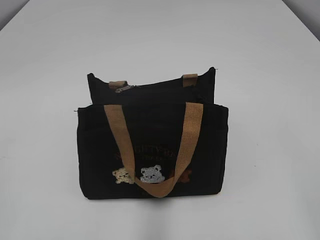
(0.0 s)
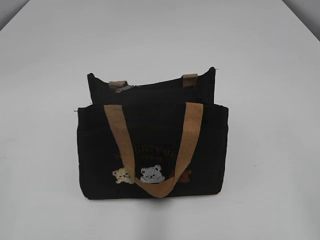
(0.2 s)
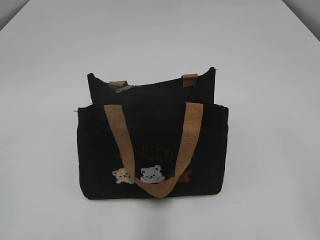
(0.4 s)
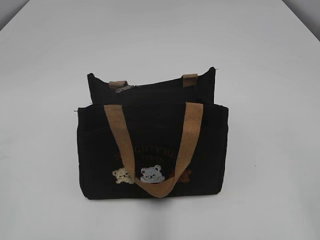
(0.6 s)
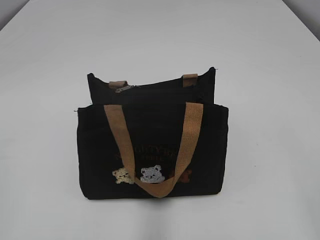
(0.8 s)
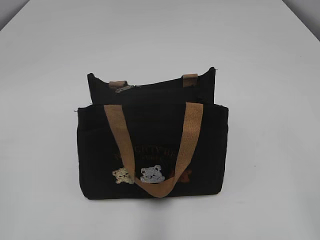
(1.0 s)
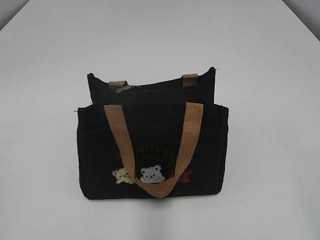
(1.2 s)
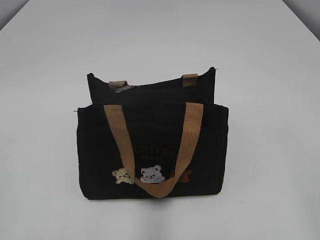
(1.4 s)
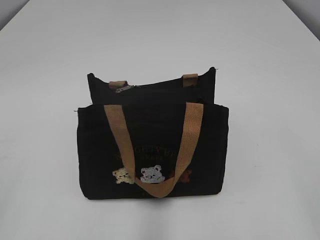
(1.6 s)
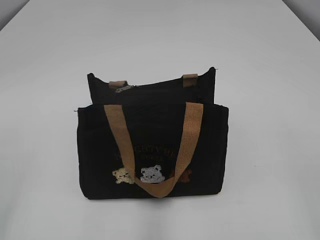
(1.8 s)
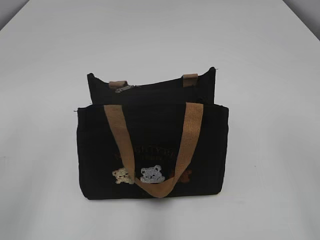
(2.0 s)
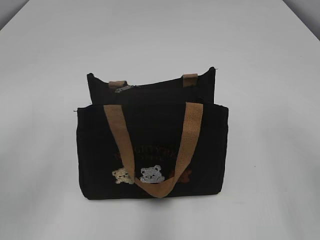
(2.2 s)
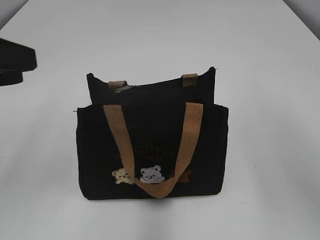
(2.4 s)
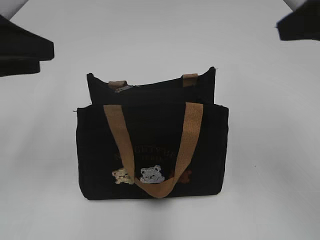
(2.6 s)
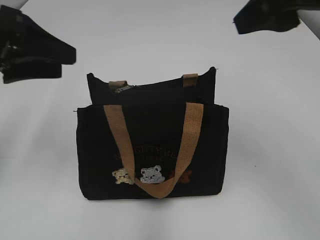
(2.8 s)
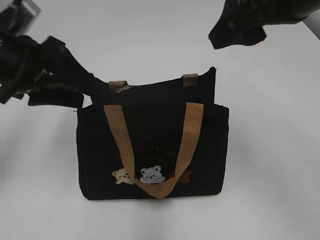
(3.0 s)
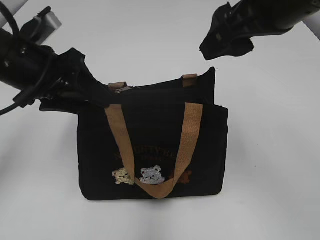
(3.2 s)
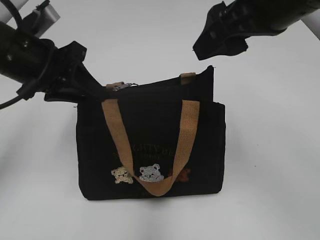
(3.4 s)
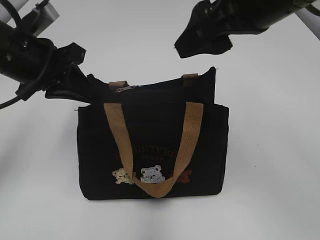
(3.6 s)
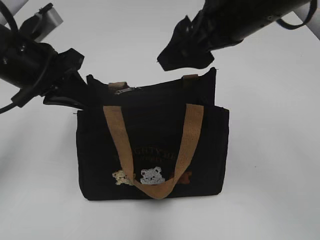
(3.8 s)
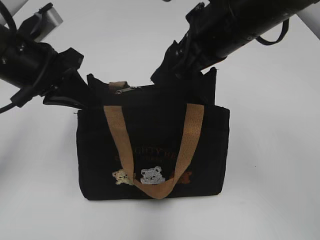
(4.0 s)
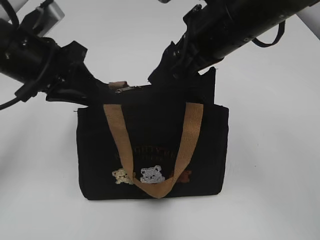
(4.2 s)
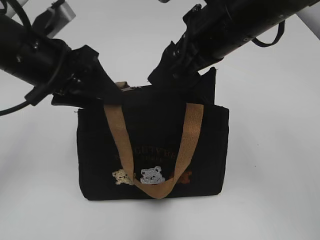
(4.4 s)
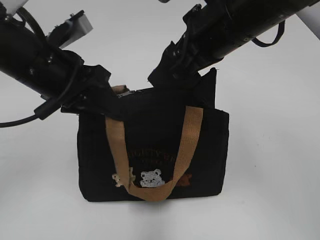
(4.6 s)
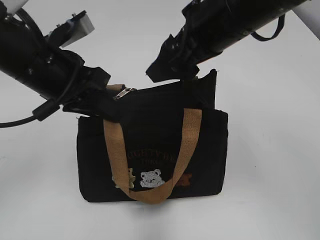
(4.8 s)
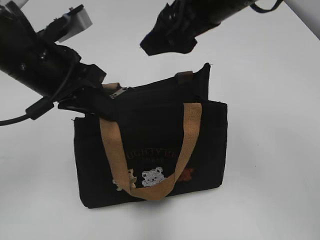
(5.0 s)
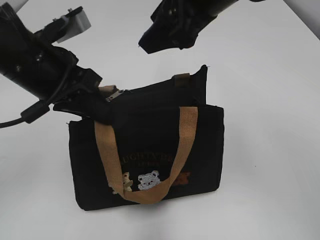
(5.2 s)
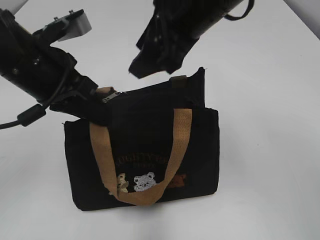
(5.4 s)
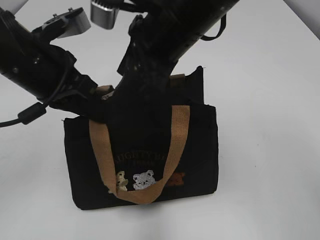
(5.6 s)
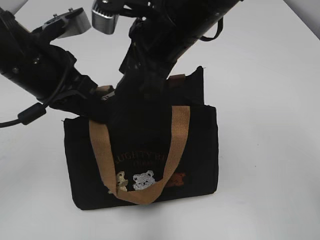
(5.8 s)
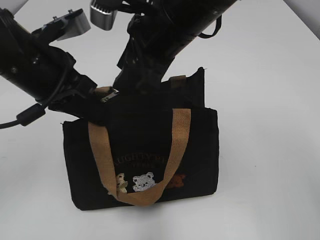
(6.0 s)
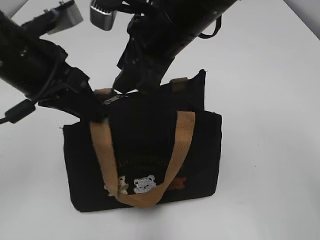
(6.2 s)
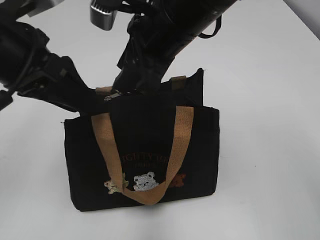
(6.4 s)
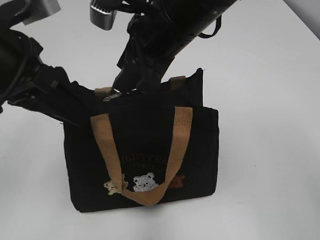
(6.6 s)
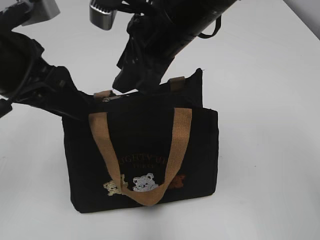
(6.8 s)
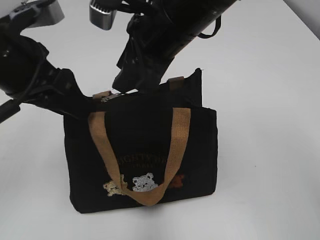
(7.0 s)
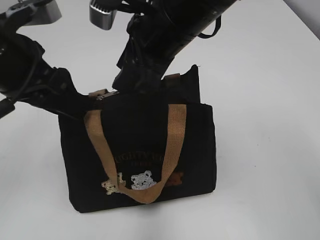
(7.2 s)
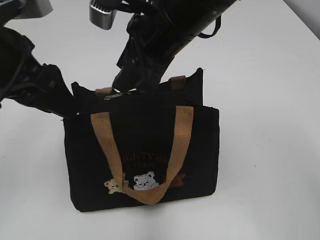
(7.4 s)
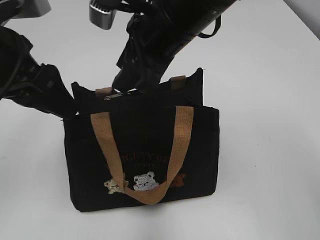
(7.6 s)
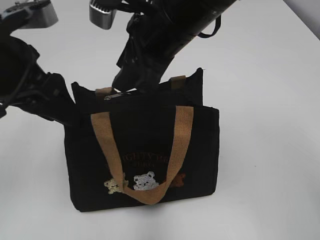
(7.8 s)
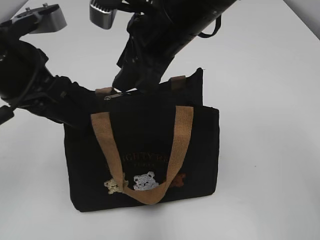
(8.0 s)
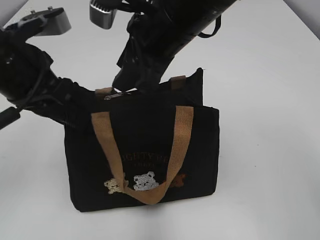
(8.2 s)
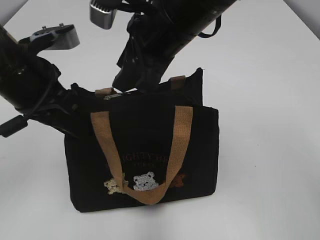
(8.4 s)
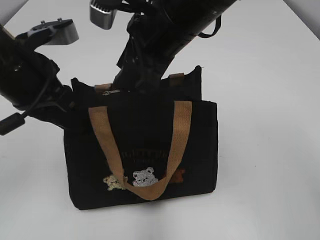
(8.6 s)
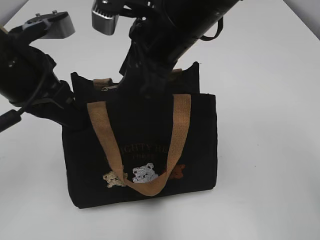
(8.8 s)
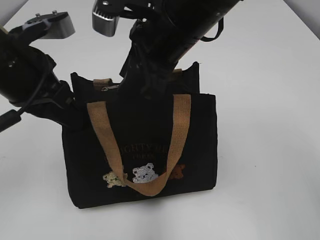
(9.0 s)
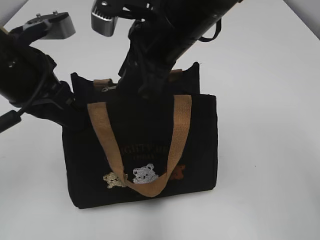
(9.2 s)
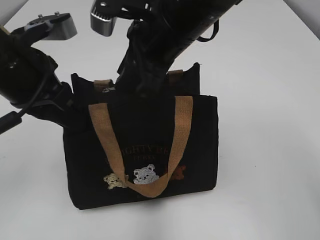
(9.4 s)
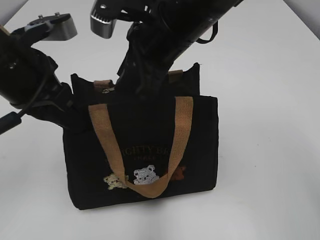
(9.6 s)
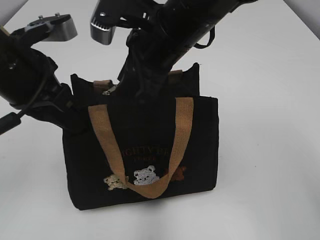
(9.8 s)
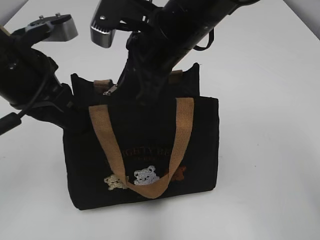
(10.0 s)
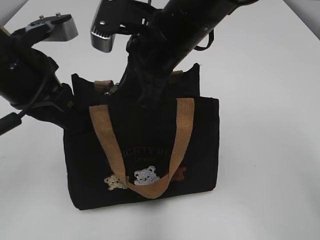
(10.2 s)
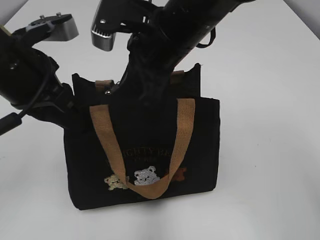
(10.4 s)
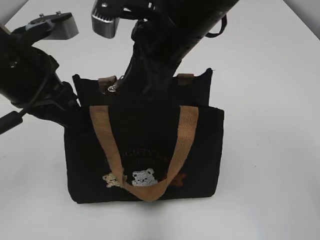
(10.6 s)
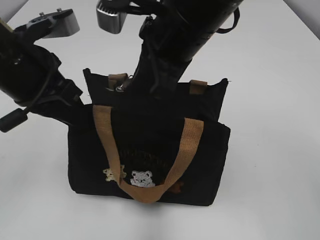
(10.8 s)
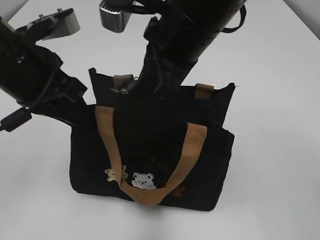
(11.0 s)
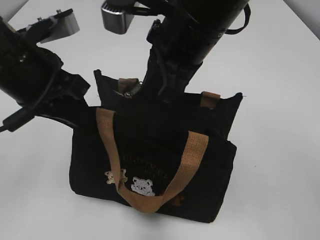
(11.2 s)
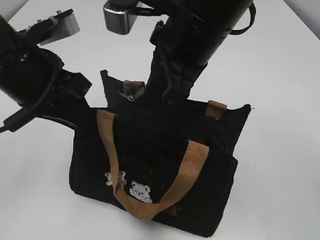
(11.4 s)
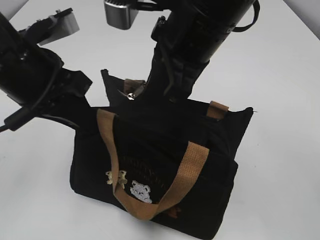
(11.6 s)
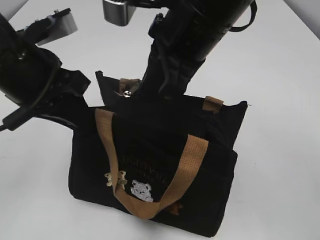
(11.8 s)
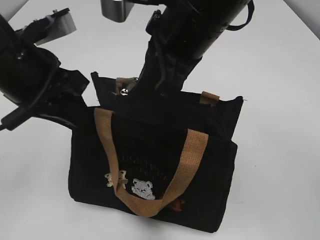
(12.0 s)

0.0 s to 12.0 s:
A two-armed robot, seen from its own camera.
1.6 to 3.0 s: The left gripper heads forward, covering approximately 30 cm, and opens, while the right gripper heads forward and to the left, covering some 30 cm.
3.0 to 4.4 s: The left gripper closes, then reopens. Meanwhile the right gripper travels downward and to the left by approximately 10 cm.
4.4 to 6.0 s: The left gripper closes its fingers, while the right gripper is displaced to the left by about 5 cm, and closes.
6.0 to 7.6 s: The left gripper changes place by roughly 5 cm, and opens its fingers.
7.6 to 9.0 s: The left gripper closes.
9.0 to 10.4 s: The right gripper closes its fingers.
10.4 to 12.0 s: The right gripper moves roughly 5 cm.

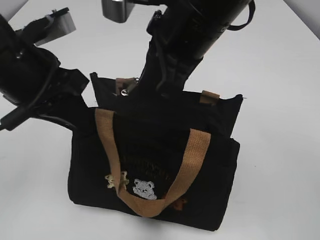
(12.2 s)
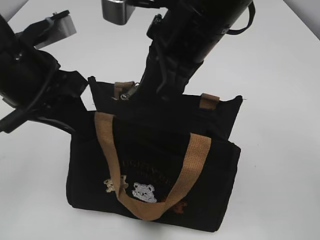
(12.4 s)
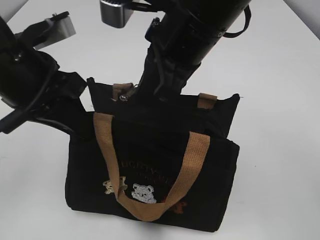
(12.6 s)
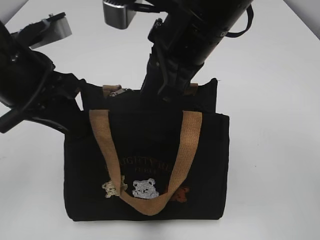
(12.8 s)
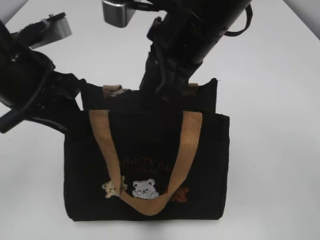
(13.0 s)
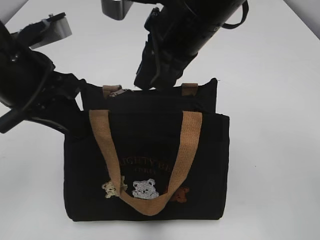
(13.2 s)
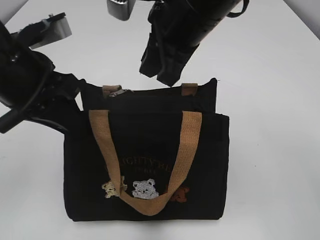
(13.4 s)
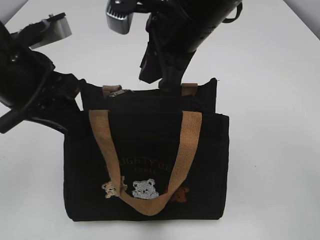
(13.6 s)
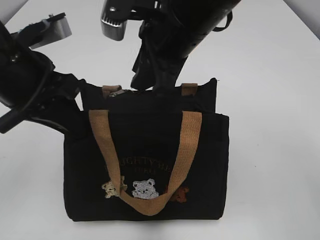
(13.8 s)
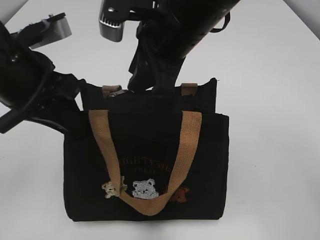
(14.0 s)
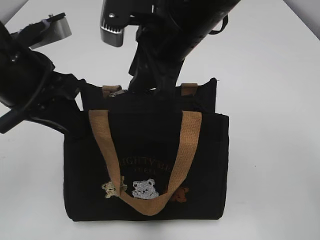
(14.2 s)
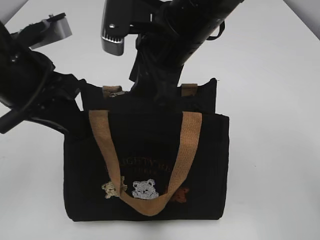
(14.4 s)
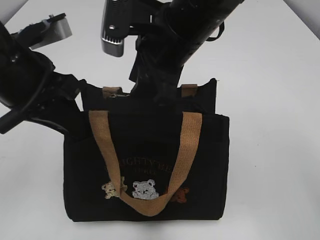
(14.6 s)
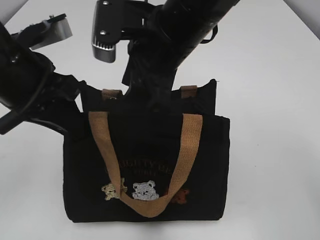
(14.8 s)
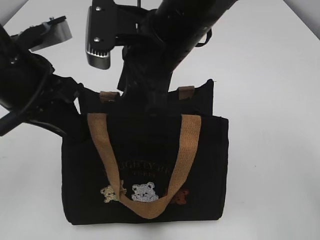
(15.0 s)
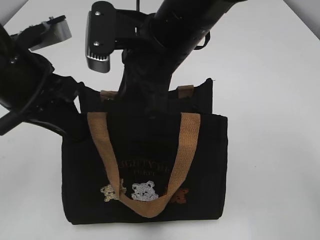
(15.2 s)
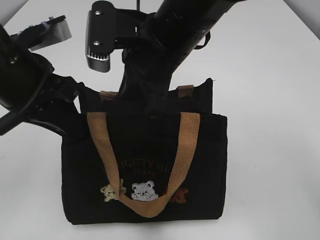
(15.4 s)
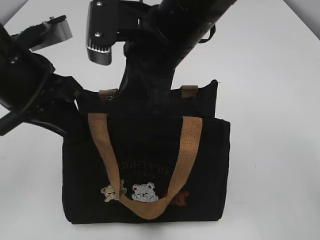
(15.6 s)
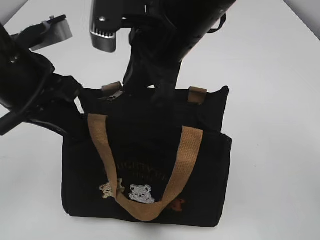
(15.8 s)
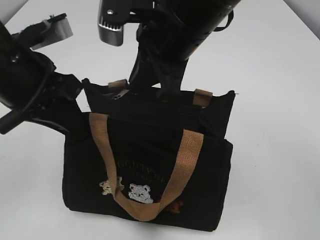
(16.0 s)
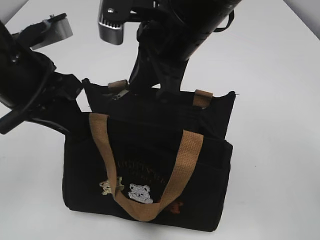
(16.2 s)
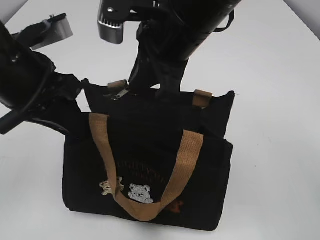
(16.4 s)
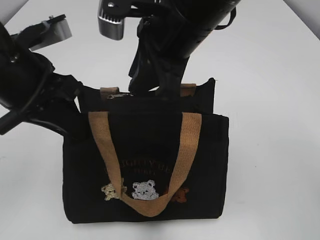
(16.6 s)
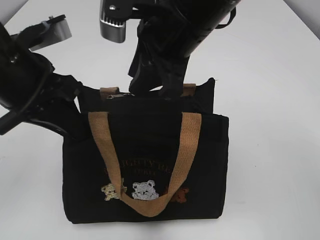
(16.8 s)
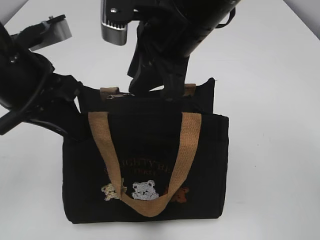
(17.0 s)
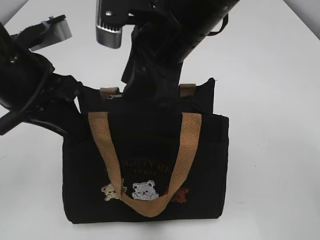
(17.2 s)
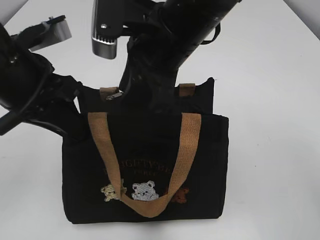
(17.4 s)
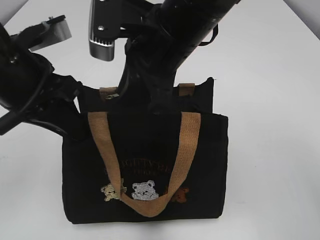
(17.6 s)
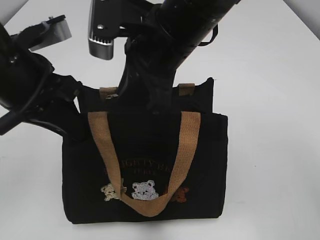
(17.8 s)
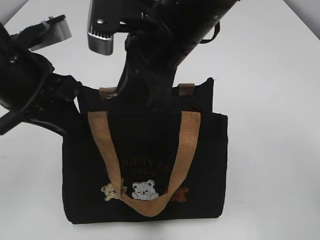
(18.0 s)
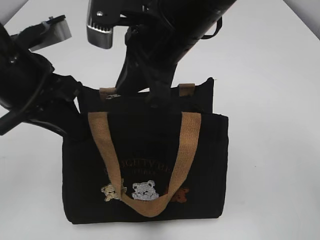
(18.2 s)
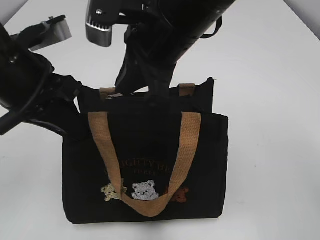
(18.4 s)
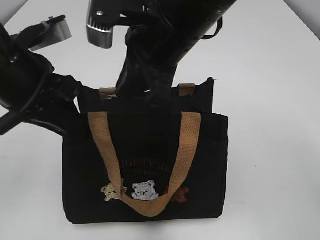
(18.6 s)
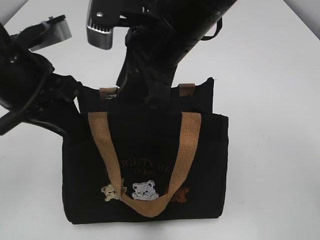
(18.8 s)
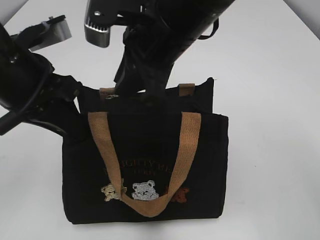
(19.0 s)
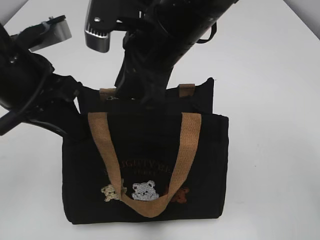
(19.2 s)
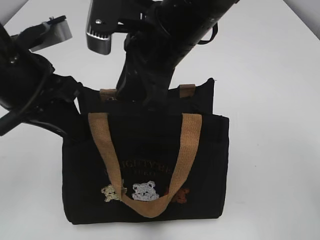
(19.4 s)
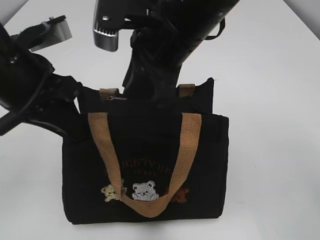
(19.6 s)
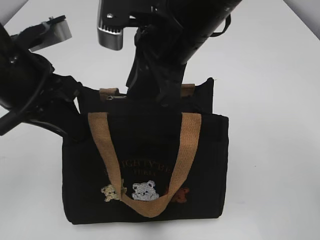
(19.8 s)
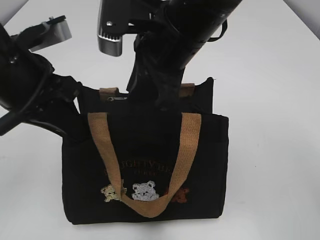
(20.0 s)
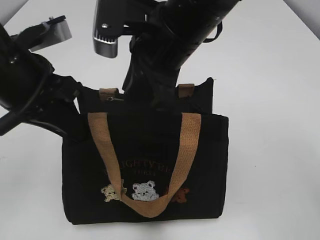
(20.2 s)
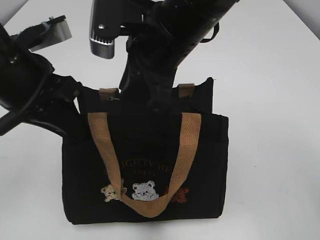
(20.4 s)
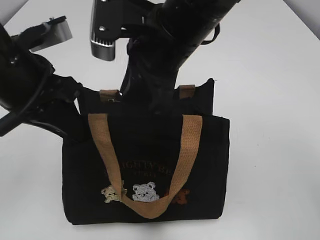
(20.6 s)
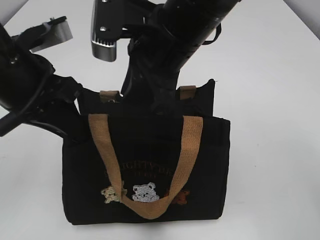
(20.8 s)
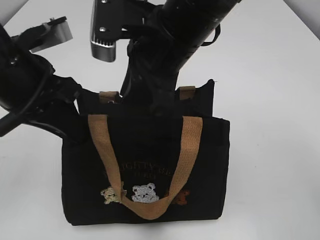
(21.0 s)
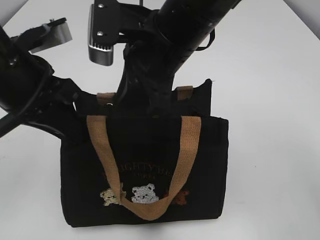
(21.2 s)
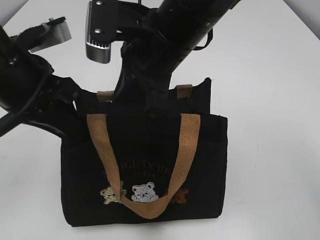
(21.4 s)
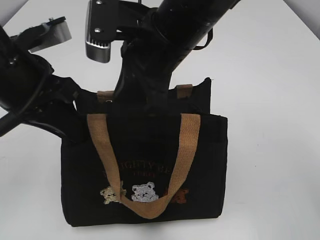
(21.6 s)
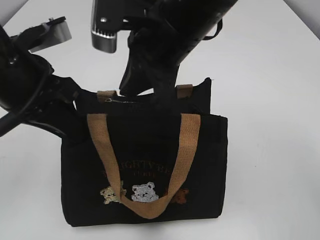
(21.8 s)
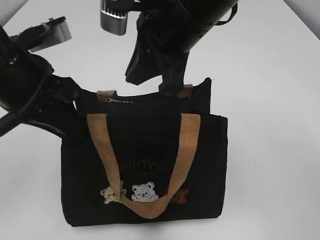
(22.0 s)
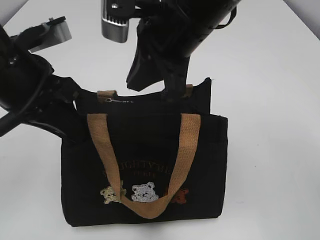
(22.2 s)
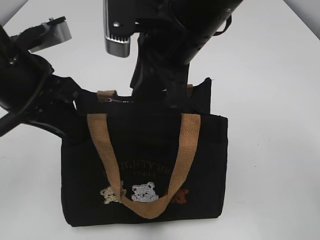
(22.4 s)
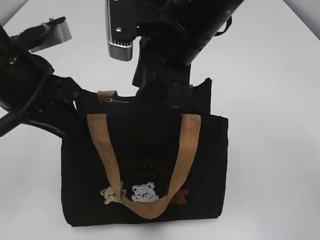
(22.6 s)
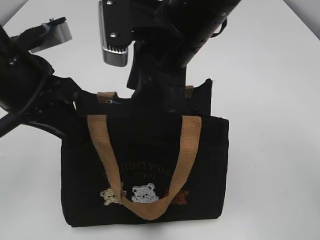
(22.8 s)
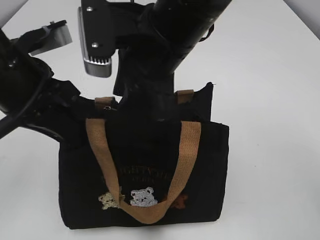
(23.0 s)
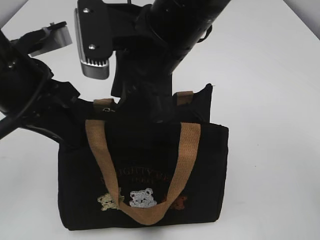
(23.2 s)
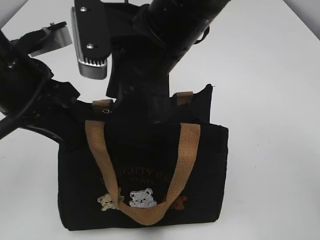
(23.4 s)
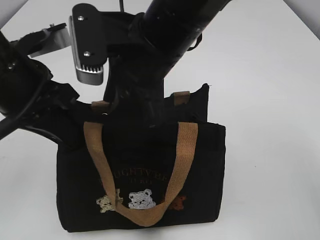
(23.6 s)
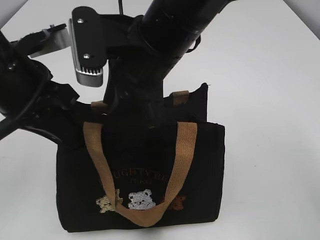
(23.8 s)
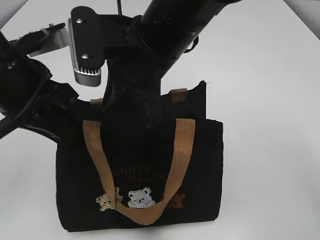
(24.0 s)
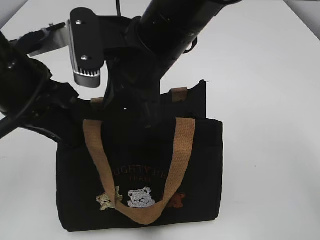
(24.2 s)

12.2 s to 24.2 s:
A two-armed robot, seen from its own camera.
12.2 to 13.8 s: The right gripper opens.
13.8 to 18.2 s: The grippers move only a little.
18.2 to 19.8 s: Neither gripper changes place.
19.8 to 22.6 s: There are only small adjustments of the grippers.
22.6 to 24.2 s: The right gripper closes.
